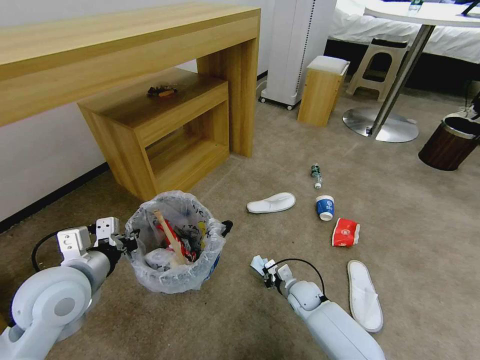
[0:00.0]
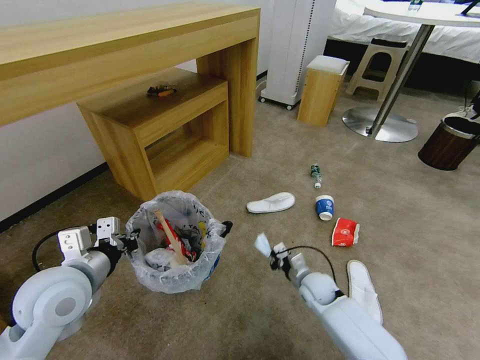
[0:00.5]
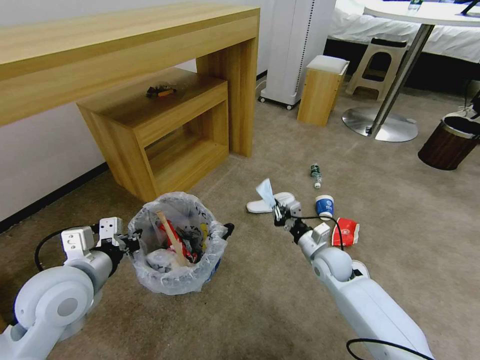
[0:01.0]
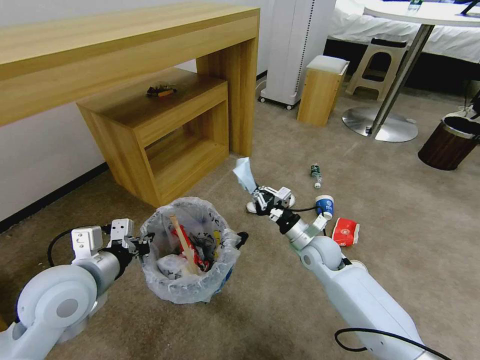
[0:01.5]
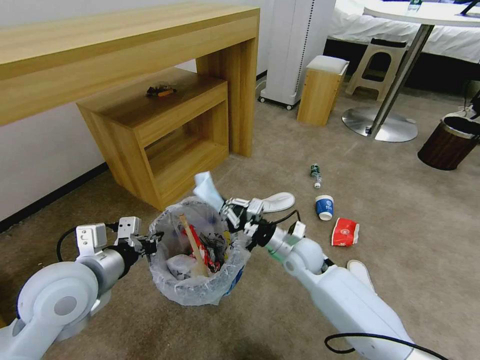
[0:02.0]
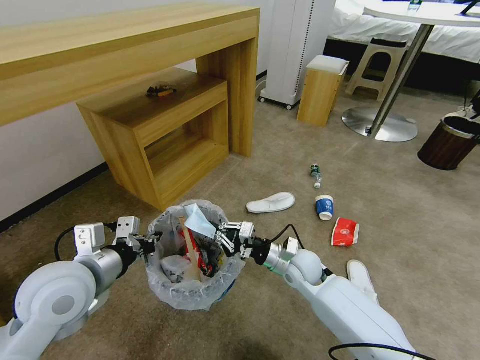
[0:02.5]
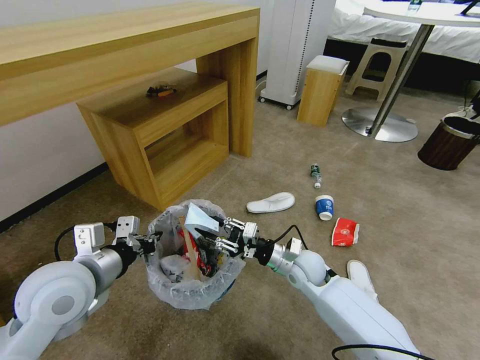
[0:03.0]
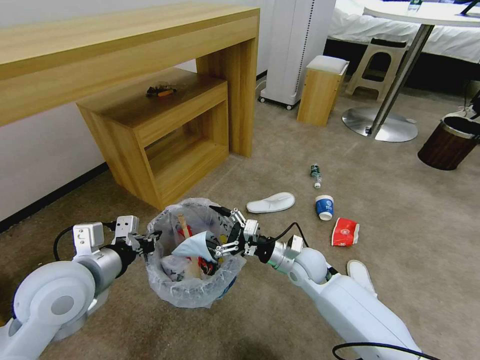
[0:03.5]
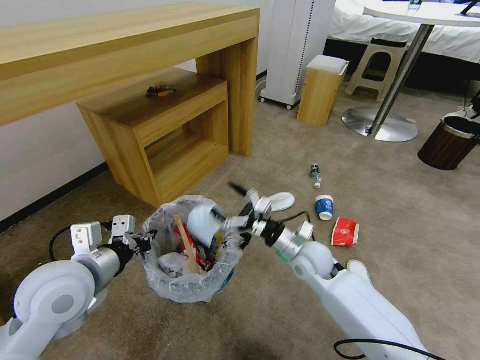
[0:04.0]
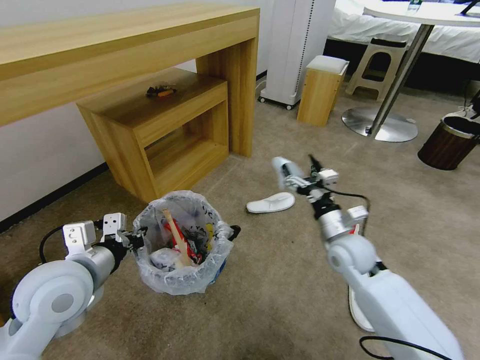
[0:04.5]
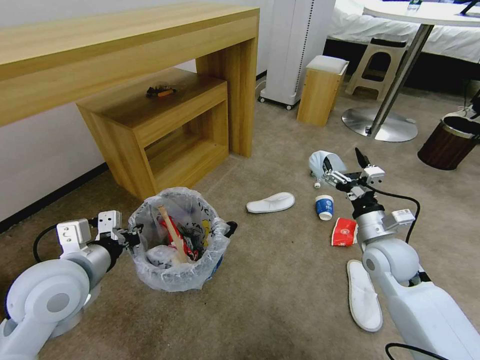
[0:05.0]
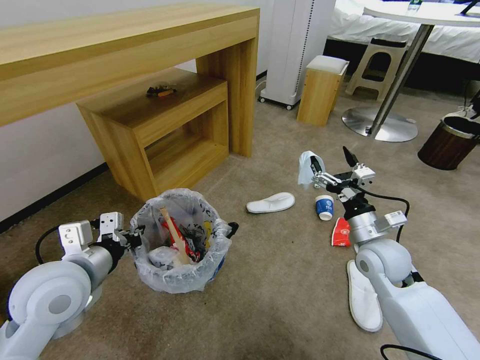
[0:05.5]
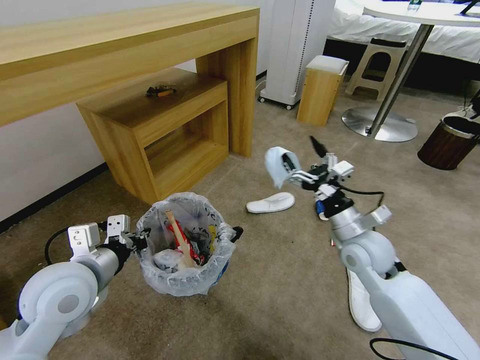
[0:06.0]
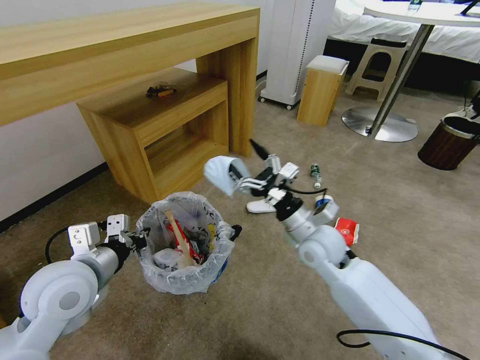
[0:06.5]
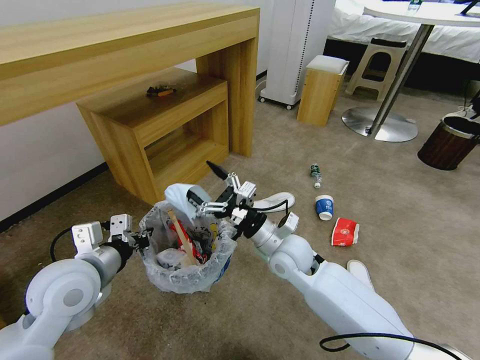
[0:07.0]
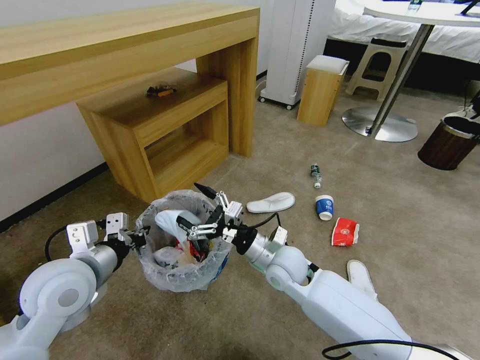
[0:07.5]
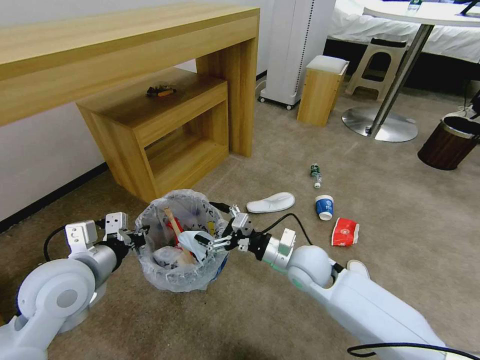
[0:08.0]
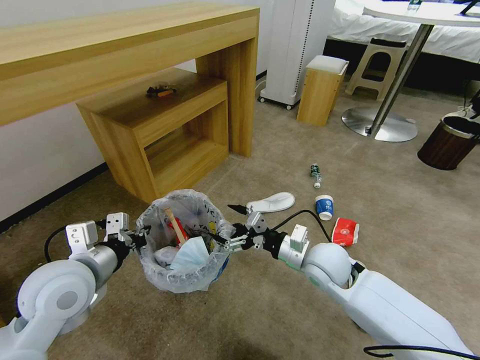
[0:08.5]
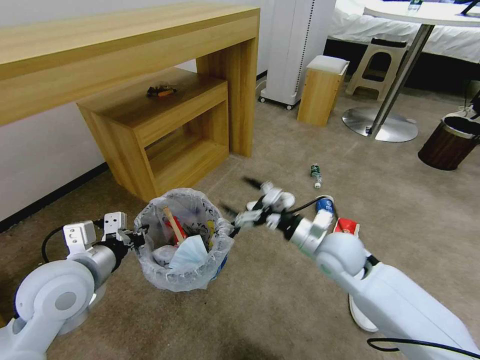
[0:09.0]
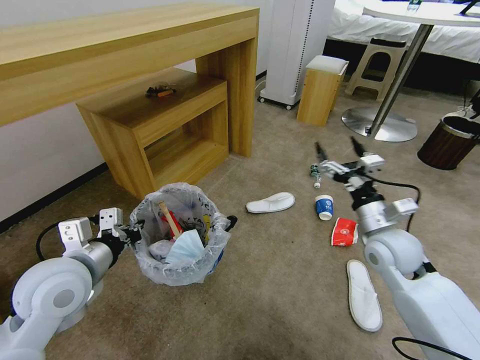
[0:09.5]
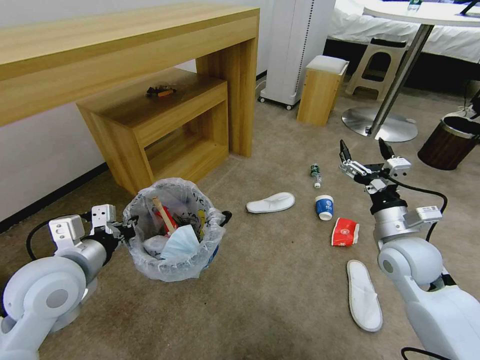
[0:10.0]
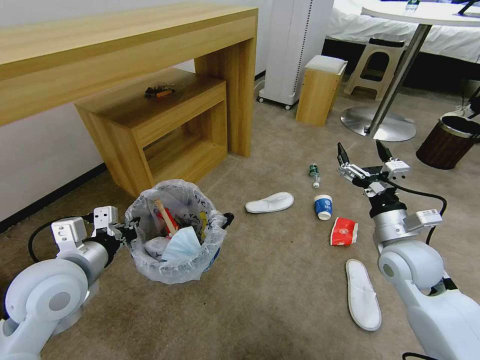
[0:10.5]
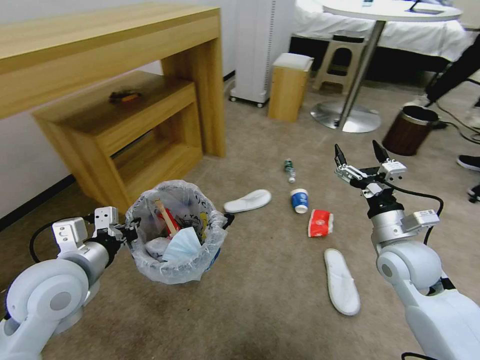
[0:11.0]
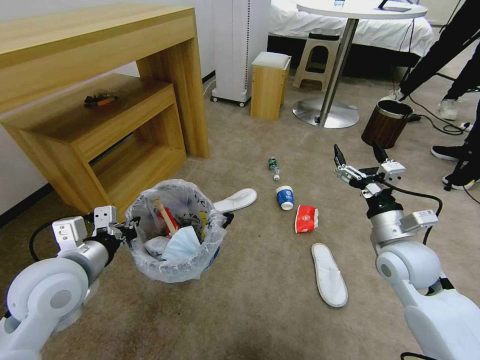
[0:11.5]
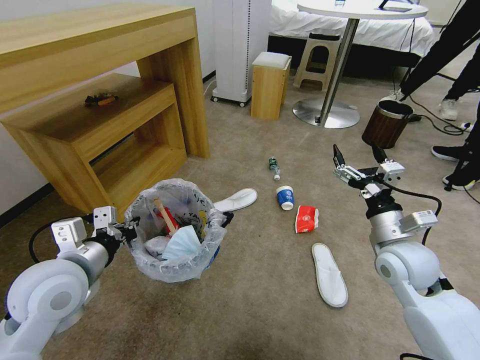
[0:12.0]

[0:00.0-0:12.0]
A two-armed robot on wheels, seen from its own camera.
Task of the whole recording: Pick up the trash bin and place the garbage on the floor into it.
0:00.0 to 0:02.0: The right gripper heads upward, covering some 20 cm.
0:02.0 to 0:04.0: The right gripper opens.
0:04.0 to 0:06.0: The right gripper travels to the right and upward by some 15 cm.
0:06.0 to 0:08.0: The right gripper goes roughly 10 cm to the left and downward.
0:08.0 to 0:10.0: The right gripper heads to the right and upward, covering approximately 20 cm.

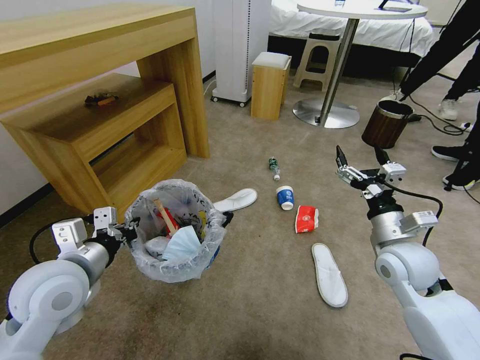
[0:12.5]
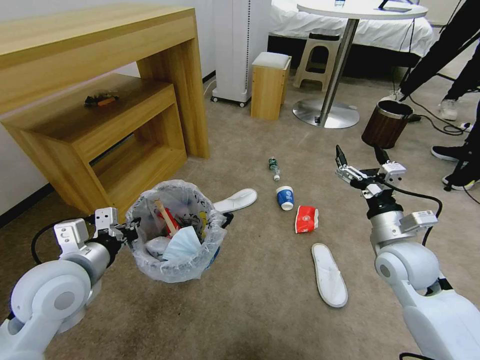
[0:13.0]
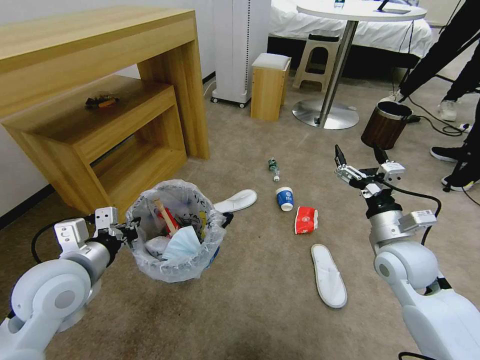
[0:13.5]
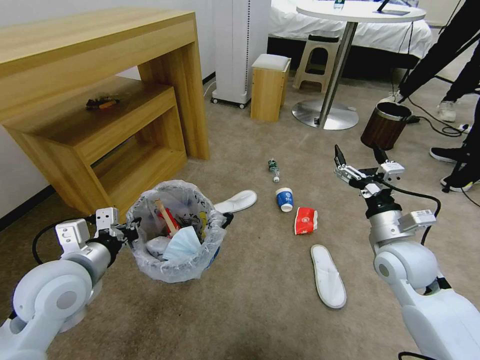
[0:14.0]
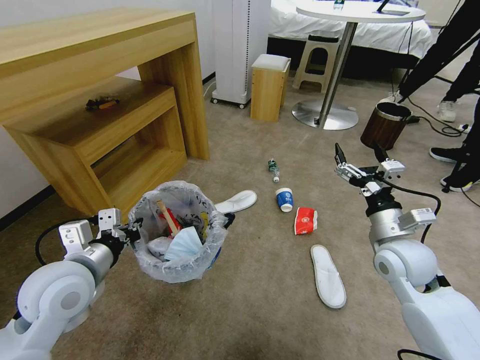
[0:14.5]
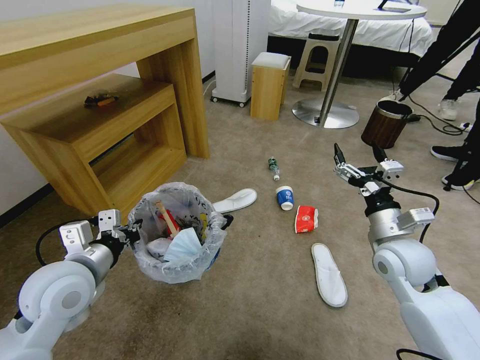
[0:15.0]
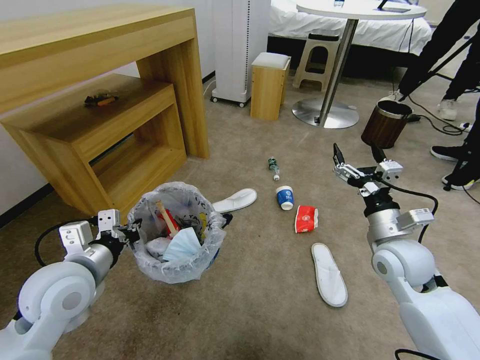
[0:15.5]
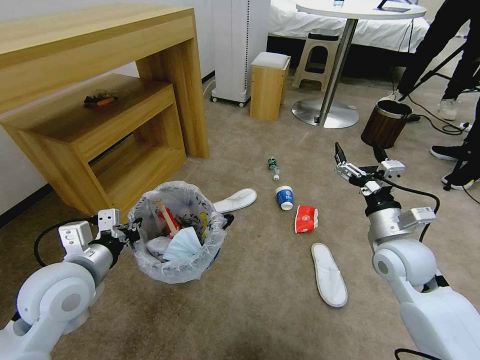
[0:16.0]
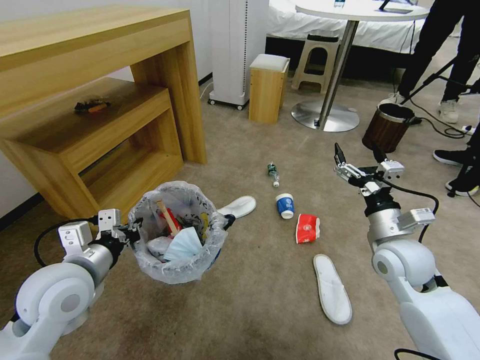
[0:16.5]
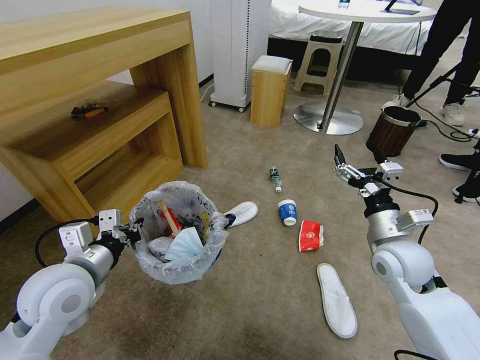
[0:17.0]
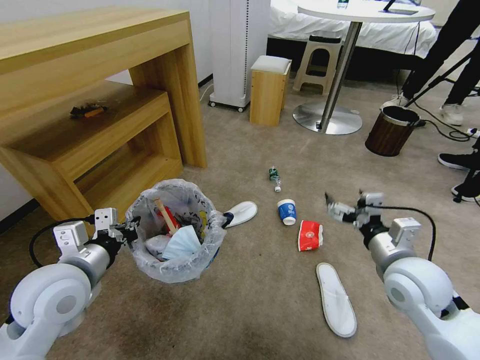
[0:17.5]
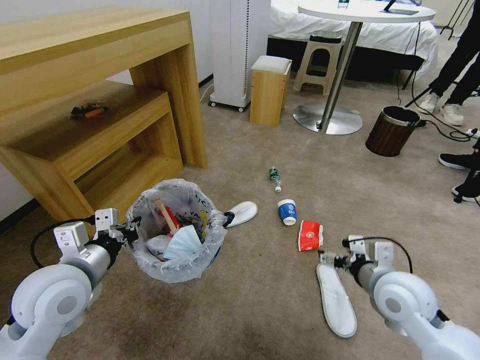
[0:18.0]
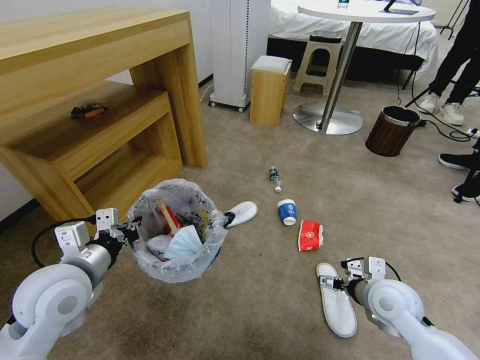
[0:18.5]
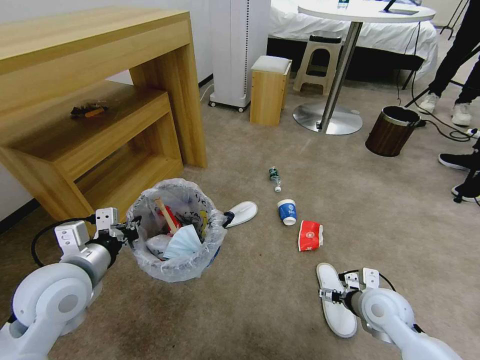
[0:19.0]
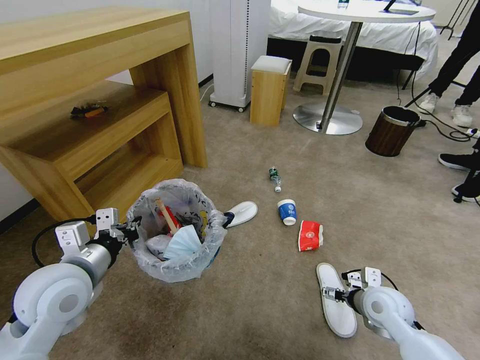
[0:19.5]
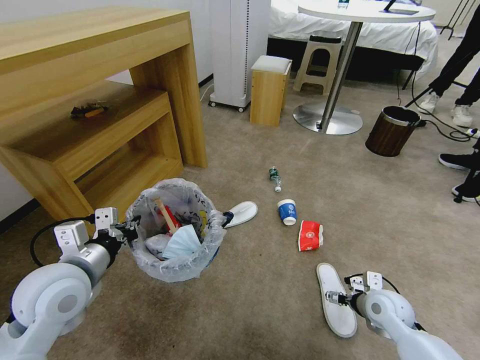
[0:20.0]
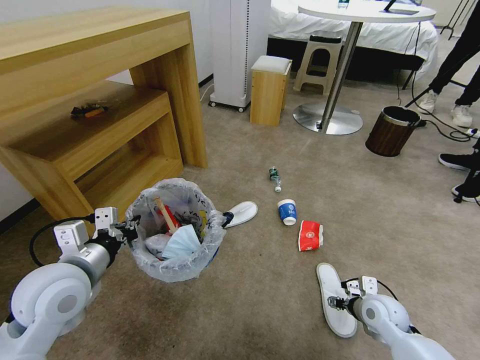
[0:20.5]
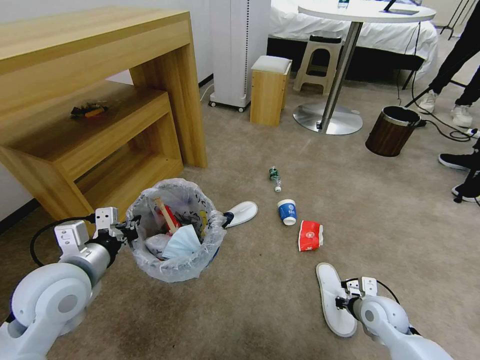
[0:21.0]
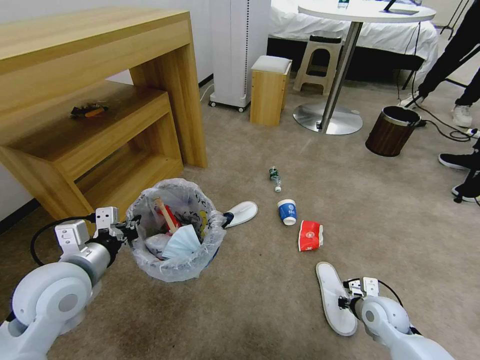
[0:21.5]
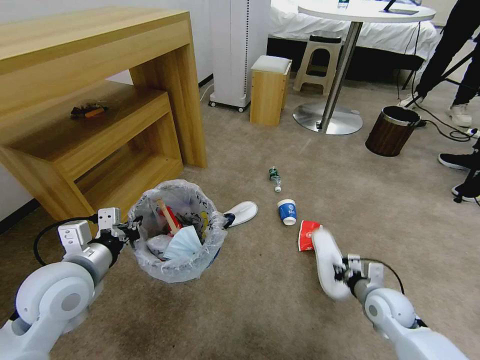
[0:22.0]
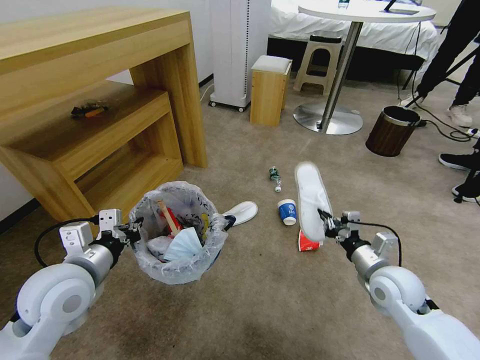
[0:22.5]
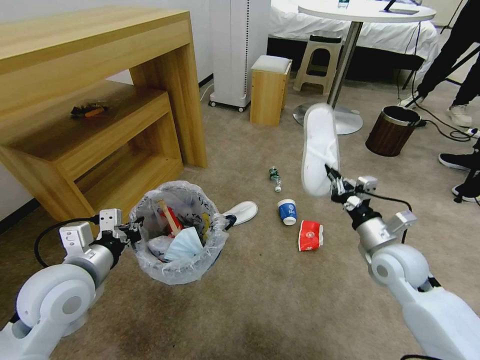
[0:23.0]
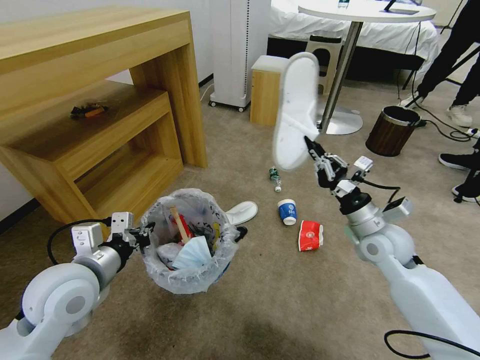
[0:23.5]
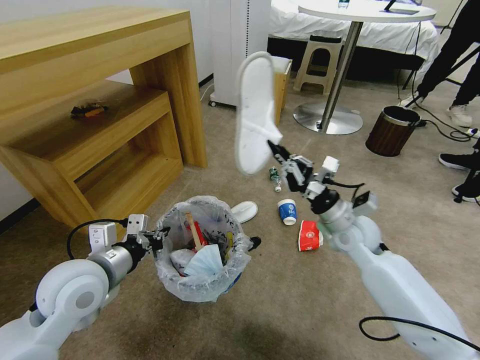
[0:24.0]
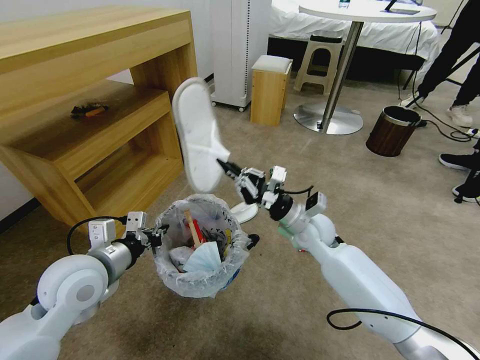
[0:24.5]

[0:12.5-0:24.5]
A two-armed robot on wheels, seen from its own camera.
Task of the whole recording: Pick up the trash bin and place the garbage on the floor into it.
0:12.5 to 0:14.5: Both grippers stay about where they are.
0:14.5 to 0:16.5: Both grippers stay put.
0:16.5 to 0:18.5: The right gripper is displaced downward and backward by about 10 cm.
0:18.5 to 0:20.5: The right gripper goes about 10 cm downward.
0:20.5 to 0:22.5: The right gripper heads upward, covering about 10 cm, and closes its fingers.
0:22.5 to 0:24.5: The right gripper moves to the left and forward, some 20 cm.

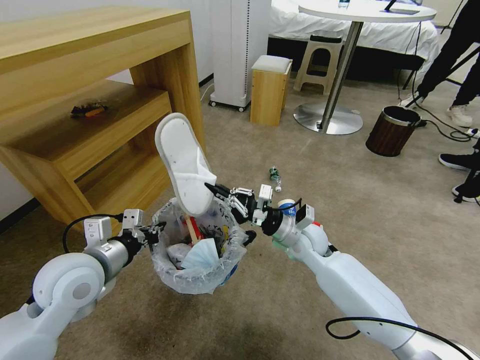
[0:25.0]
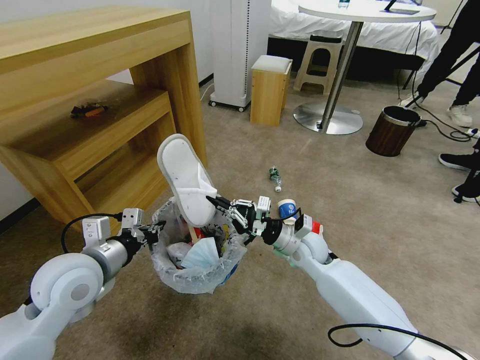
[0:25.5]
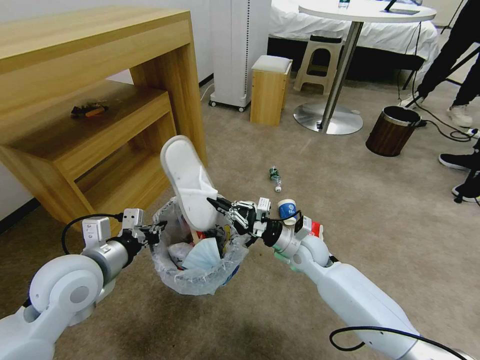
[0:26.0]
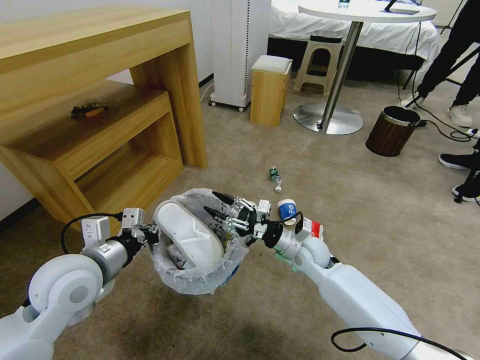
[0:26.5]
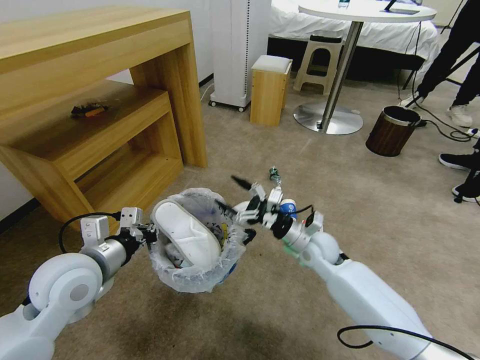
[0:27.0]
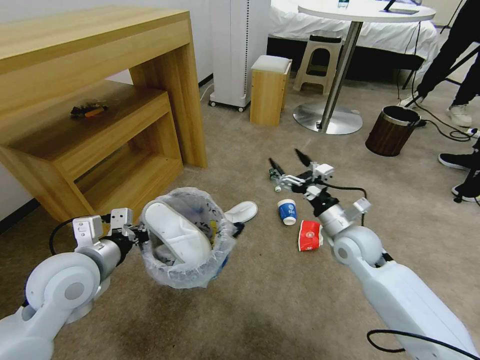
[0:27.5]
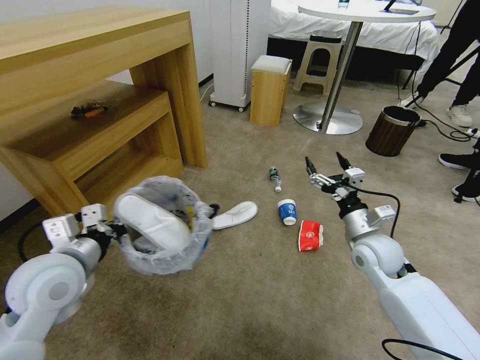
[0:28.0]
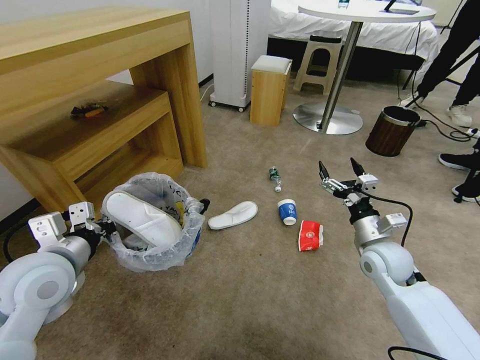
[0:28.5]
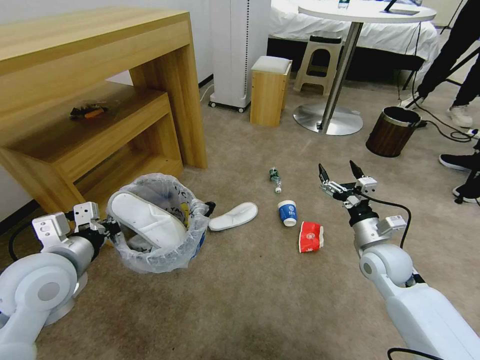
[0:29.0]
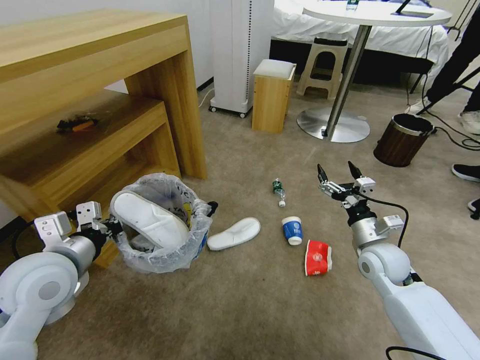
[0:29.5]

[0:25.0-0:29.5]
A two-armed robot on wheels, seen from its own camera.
Task of the whole recording: Pick up the trash bin and place the garbage on the floor into it.
0:25.0 to 0:27.0: The right gripper opens.
0:27.0 to 0:29.5: The right gripper heads to the right, covering roughly 15 cm.
